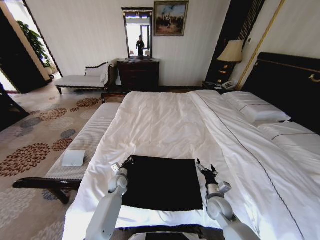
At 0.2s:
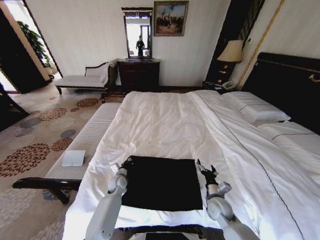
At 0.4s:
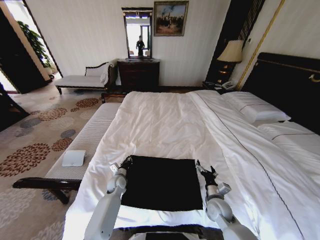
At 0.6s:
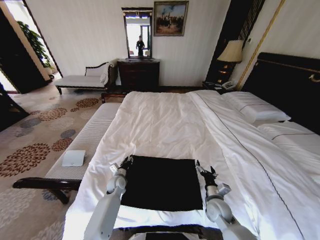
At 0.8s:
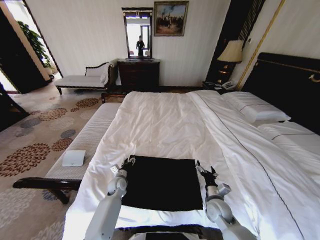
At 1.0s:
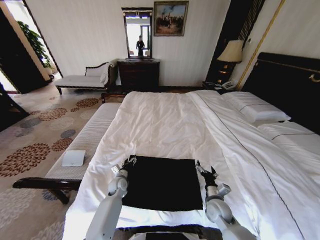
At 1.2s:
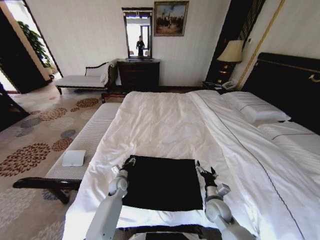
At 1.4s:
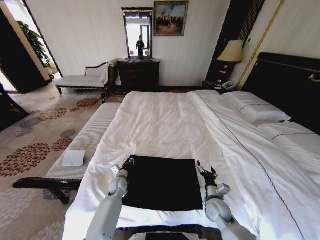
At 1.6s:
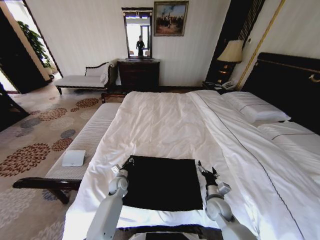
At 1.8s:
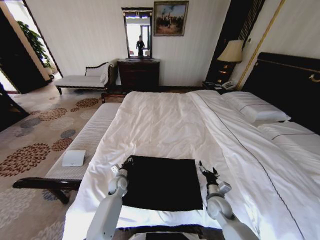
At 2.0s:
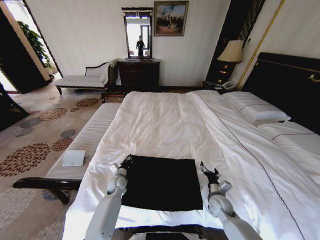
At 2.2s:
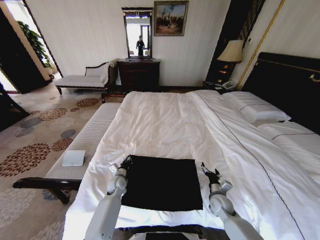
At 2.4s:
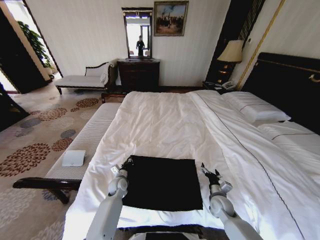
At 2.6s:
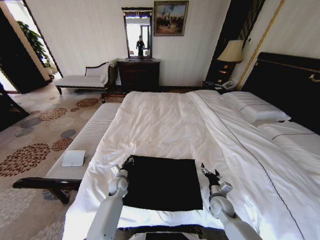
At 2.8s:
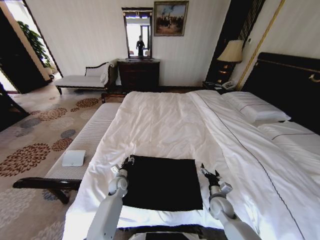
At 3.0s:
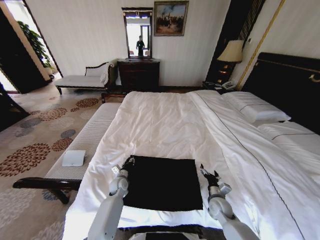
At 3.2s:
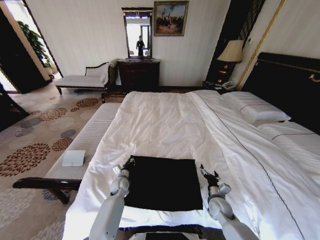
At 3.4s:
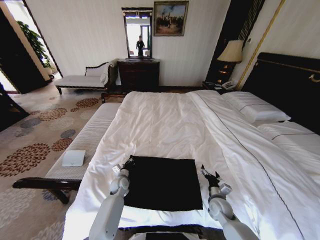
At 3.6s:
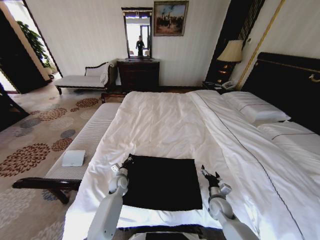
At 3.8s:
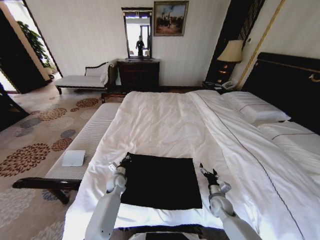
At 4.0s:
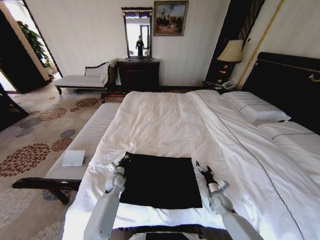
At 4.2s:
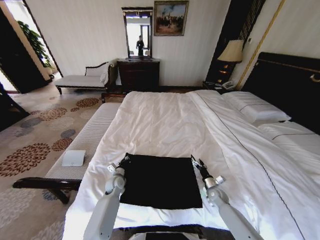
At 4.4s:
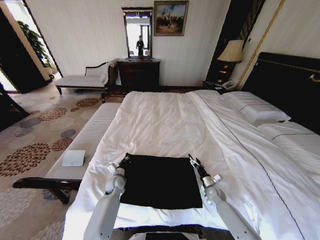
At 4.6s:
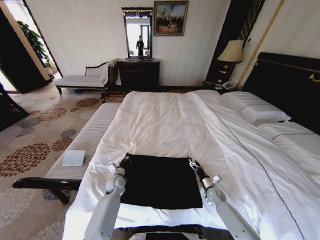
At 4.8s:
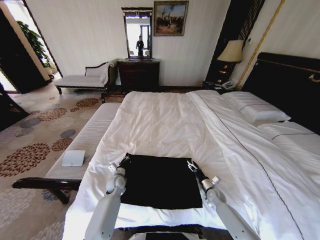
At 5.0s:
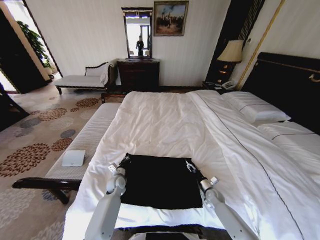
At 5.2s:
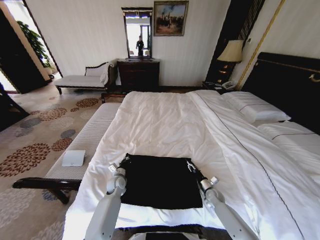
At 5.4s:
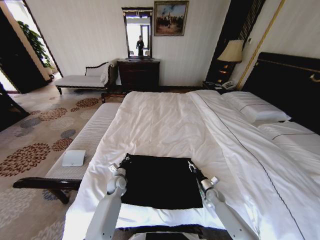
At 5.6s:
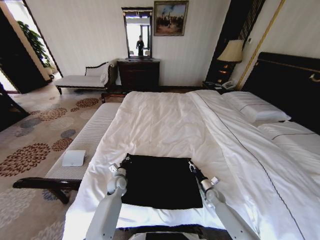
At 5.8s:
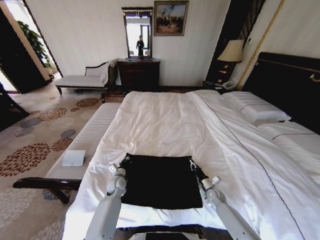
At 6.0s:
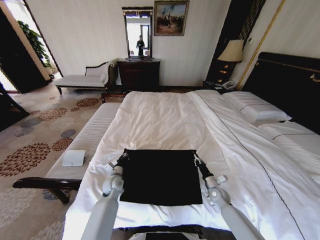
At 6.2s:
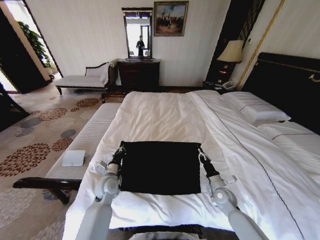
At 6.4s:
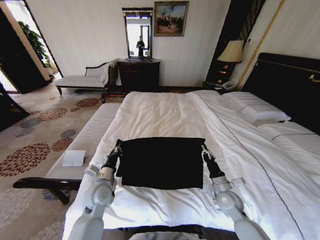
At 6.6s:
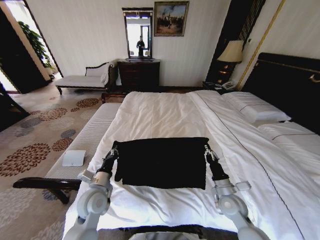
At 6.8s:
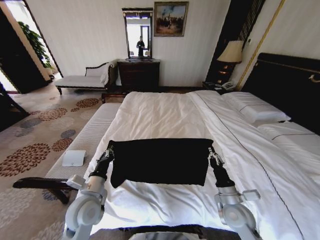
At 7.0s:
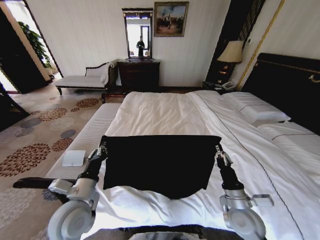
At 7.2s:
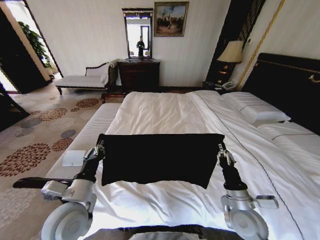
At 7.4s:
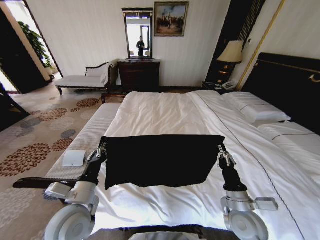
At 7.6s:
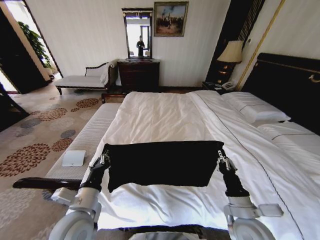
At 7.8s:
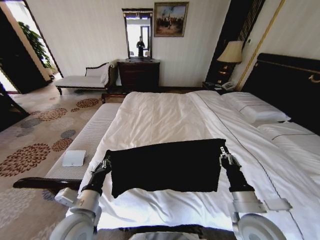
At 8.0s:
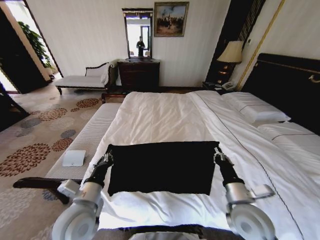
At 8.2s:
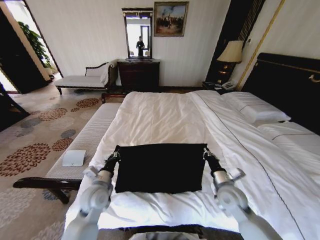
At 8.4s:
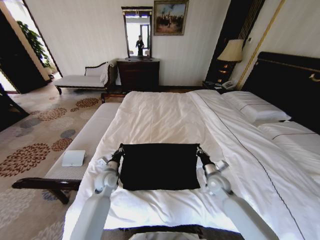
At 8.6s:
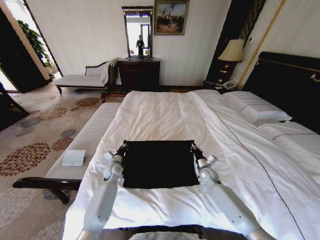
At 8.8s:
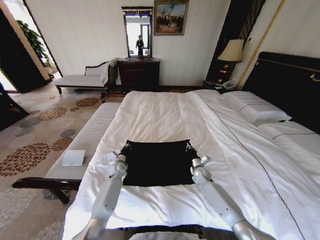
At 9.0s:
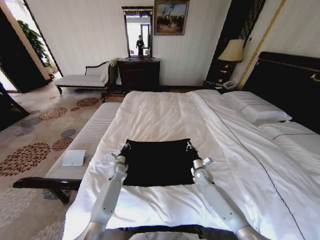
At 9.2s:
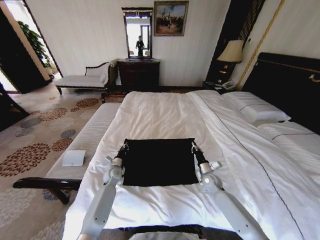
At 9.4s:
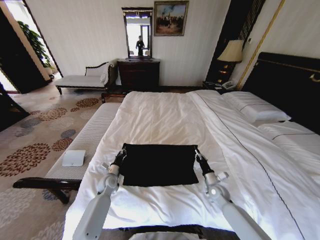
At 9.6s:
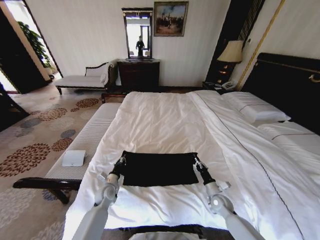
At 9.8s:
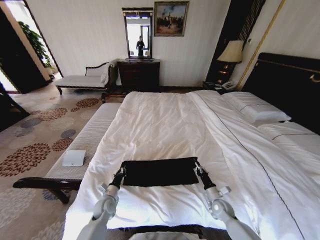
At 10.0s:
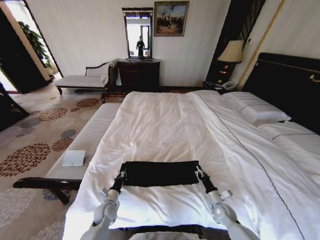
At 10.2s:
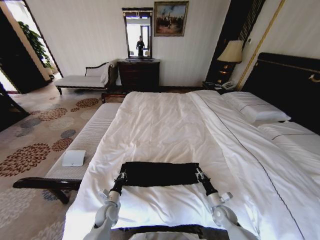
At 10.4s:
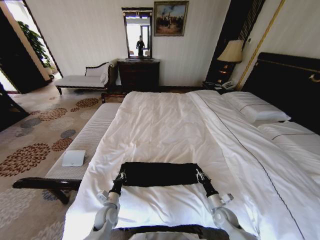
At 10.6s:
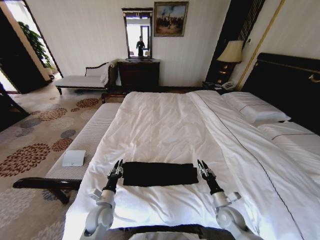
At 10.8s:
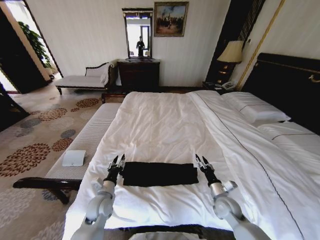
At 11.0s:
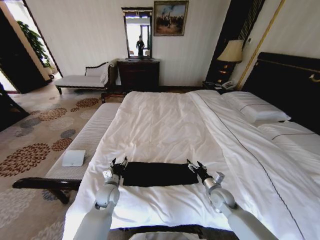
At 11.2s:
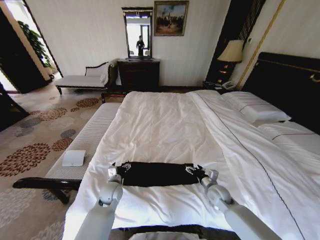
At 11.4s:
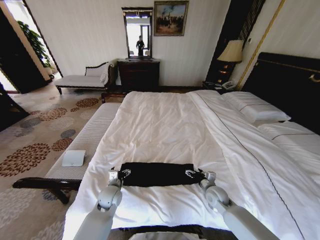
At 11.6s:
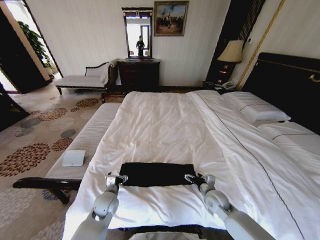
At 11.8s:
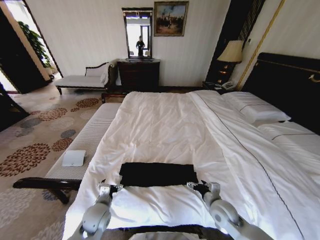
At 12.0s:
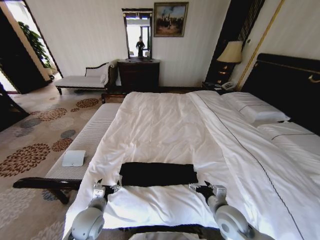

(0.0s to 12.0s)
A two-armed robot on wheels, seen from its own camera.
Task of the whole recording: Fold the clothes on the bed.
0.0s - 1.6s: The left gripper opens, then closes again.
1.6s - 3.0s: The grippers move only a little.
3.0s - 4.4s: The left gripper closes its fingers. Meanwhile the right gripper goes about 10 cm forward and downward.
4.4s - 6.0s: The right gripper closes up.
6.0s - 7.6s: The right gripper moves upward and backward, approximately 25 cm. The left gripper is displaced backward and upward by approximately 25 cm.
7.6s - 9.0s: Both grippers move forward and downward, about 35 cm.
9.0s - 10.4s: Both grippers move backward, roughly 20 cm.
10.4s - 12.0s: The left gripper goes some 10 cm upward, and opens, while the right gripper travels upward and to the left by some 20 cm, and opens.

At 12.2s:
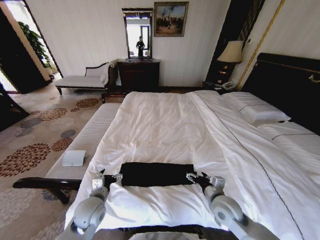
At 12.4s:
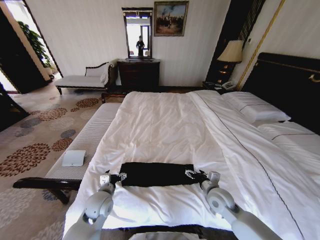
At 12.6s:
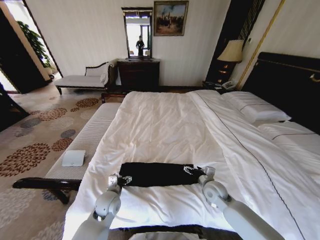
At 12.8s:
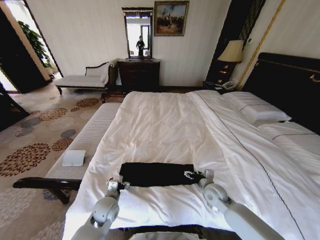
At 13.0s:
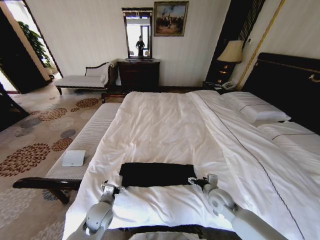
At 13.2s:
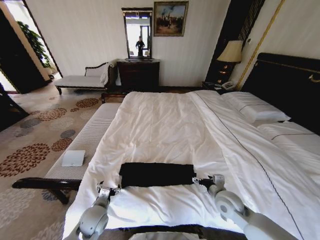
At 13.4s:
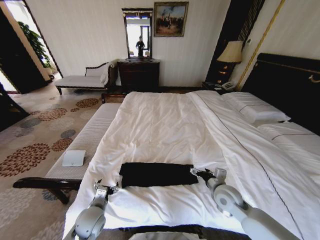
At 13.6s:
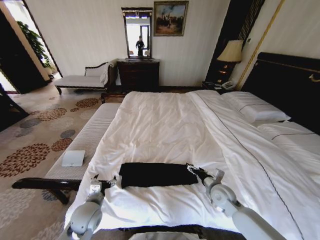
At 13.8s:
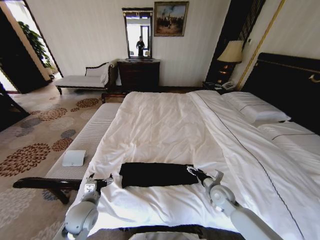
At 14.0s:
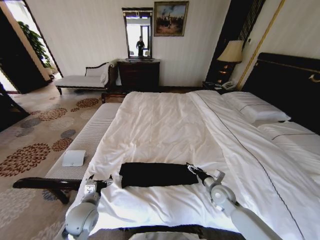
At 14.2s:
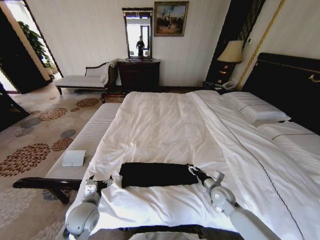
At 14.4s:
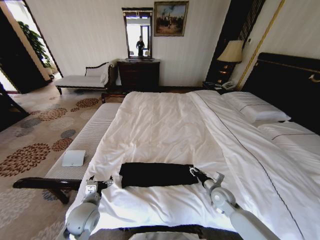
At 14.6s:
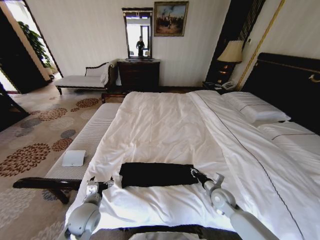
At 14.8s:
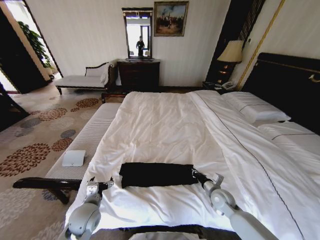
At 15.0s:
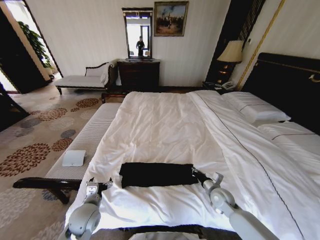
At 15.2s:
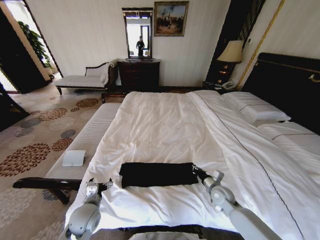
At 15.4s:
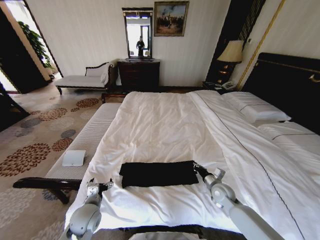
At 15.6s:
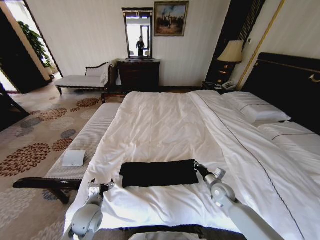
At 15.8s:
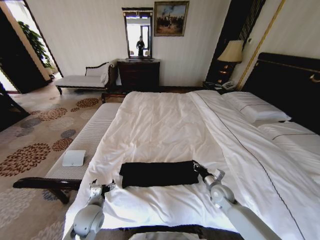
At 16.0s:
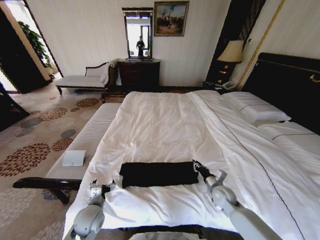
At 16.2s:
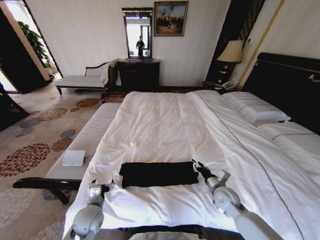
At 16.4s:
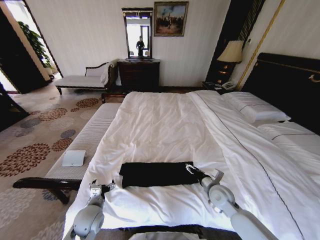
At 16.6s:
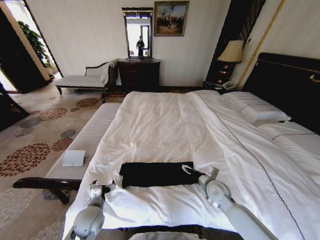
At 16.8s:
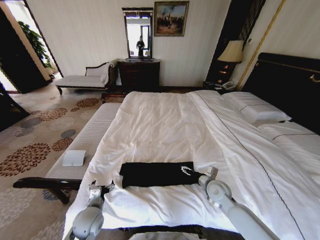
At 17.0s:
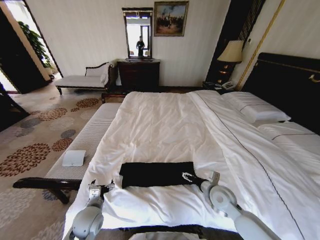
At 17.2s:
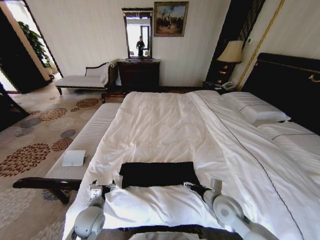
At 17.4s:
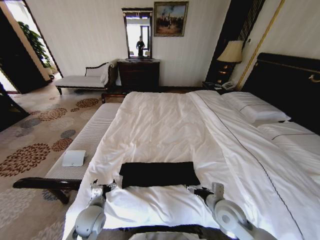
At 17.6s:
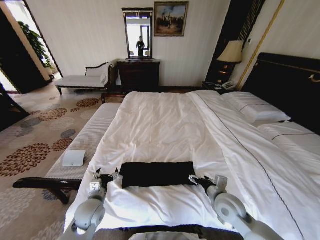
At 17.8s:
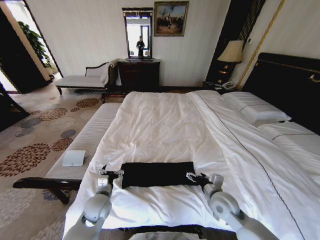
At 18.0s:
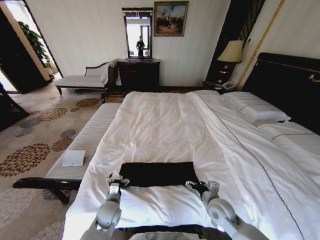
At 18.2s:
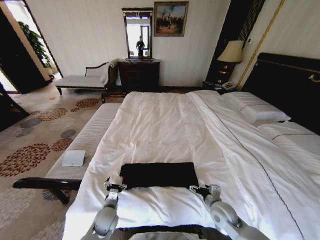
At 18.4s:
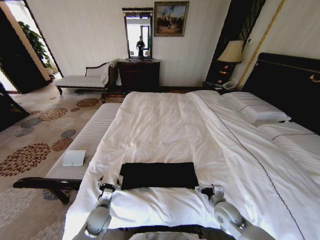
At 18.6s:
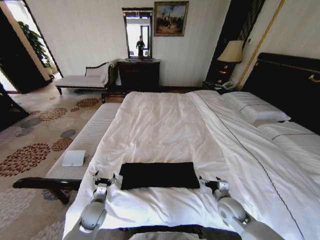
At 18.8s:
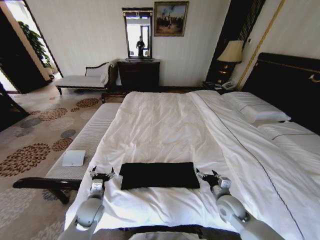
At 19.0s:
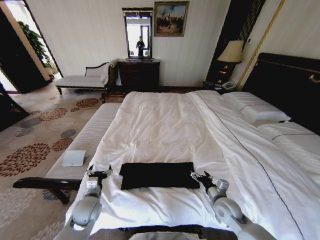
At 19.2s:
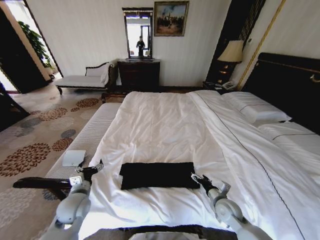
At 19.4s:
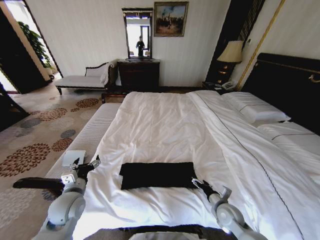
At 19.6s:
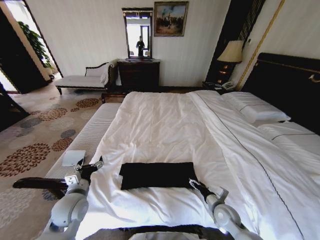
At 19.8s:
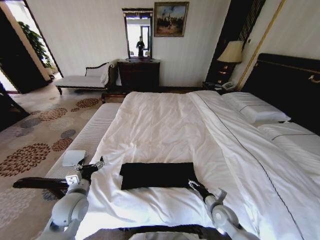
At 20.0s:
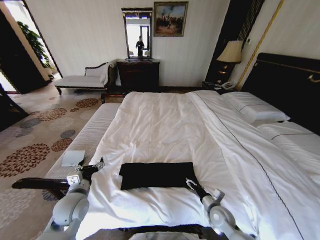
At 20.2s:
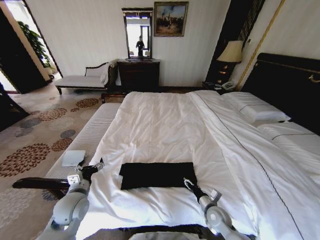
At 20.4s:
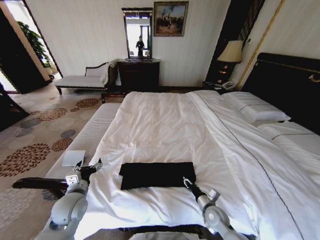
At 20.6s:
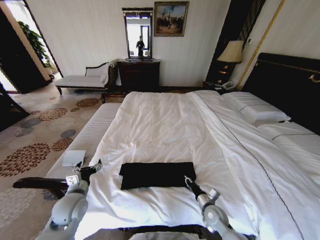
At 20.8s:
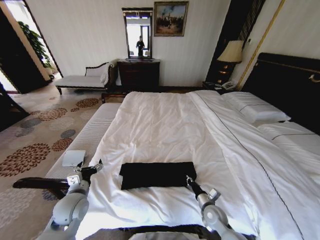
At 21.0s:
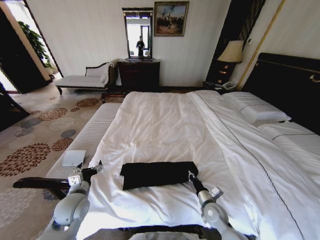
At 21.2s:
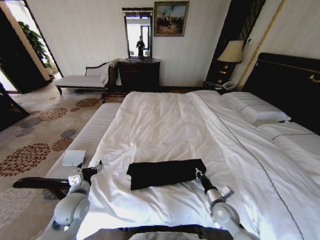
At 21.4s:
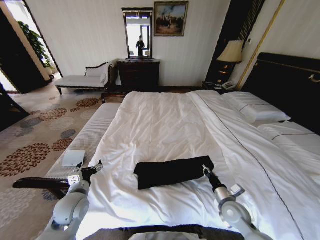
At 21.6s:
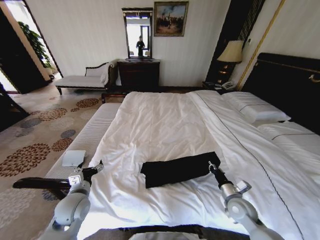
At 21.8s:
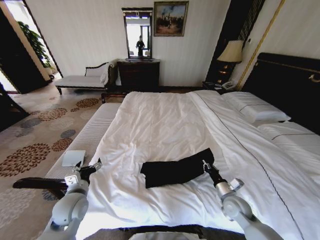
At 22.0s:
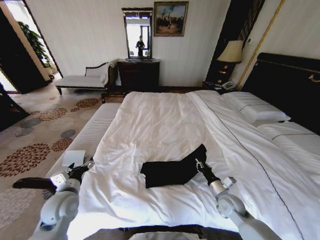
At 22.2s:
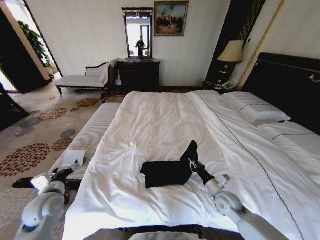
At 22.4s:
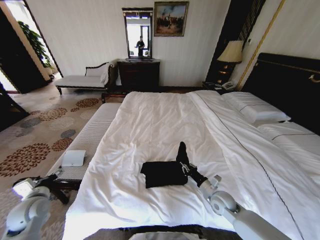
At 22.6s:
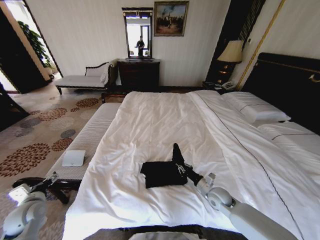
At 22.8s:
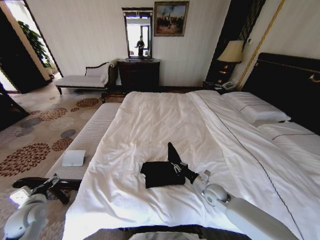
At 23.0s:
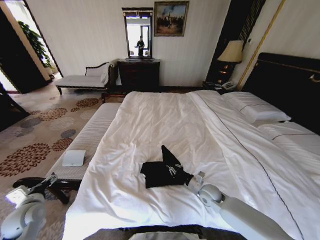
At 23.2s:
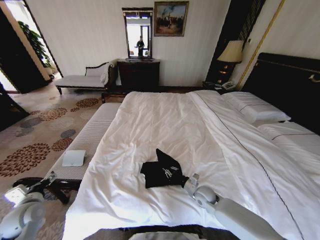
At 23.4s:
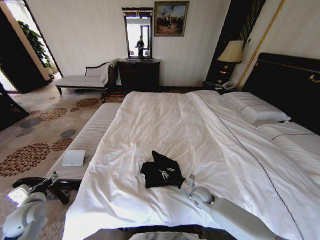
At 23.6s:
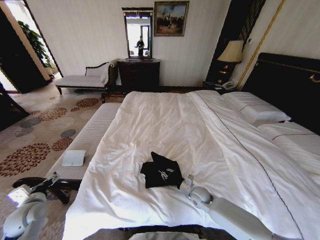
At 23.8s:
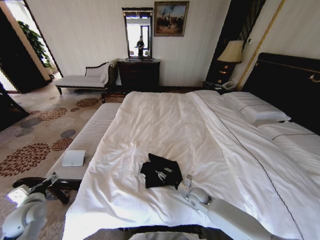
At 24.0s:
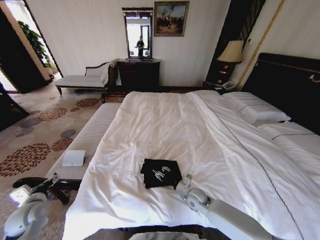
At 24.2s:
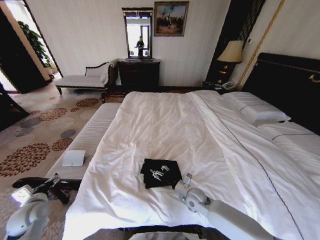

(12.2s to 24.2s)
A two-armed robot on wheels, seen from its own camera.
Task of the whole recording: Fold the clothes on the bed.
12.2s - 13.8s: The right gripper swings forward and backward, about 10 cm each way, with 2 reversals.
13.8s - 15.2s: The right gripper closes up.
15.2s - 16.6s: The right gripper shifts by about 5 cm, and opens its fingers.
16.6s - 18.2s: The right gripper goes about 10 cm backward; the left gripper is displaced downward by about 10 cm.
18.2s - 19.8s: The right gripper is displaced downward by roughly 5 cm, while the left gripper moves upward and to the left, approximately 20 cm.
19.8s - 21.2s: The right gripper closes.
21.2s - 22.6s: The right gripper moves forward, approximately 5 cm; the left gripper is displaced to the left by about 15 cm.
22.6s - 24.2s: The right gripper is displaced to the left by approximately 10 cm, and opens its fingers.
